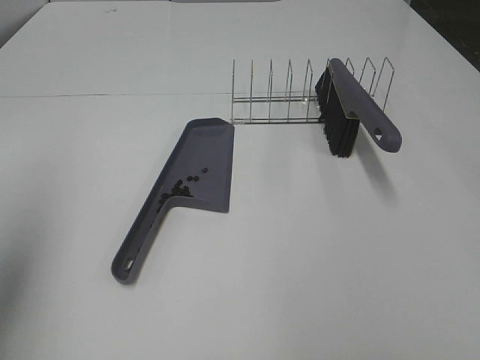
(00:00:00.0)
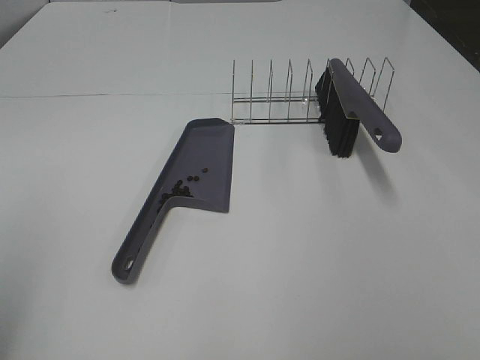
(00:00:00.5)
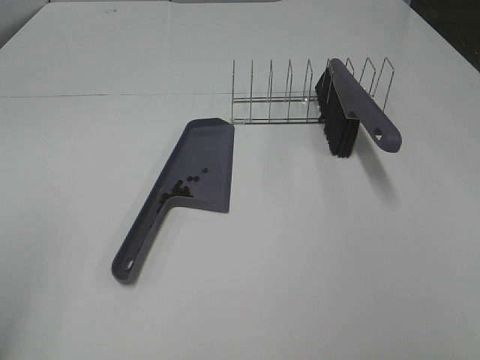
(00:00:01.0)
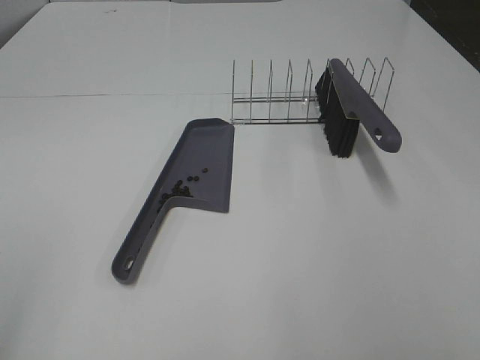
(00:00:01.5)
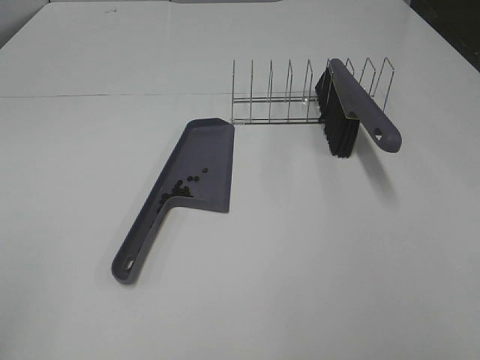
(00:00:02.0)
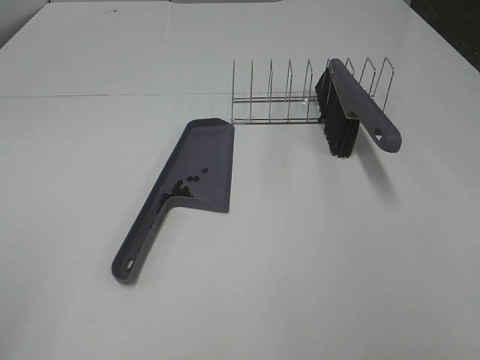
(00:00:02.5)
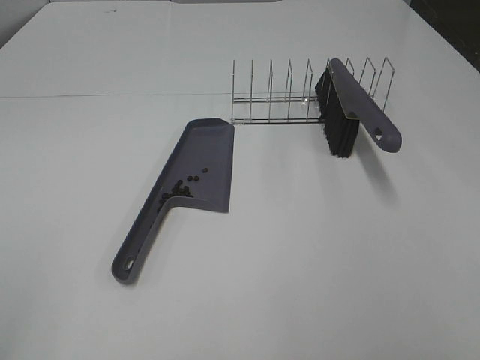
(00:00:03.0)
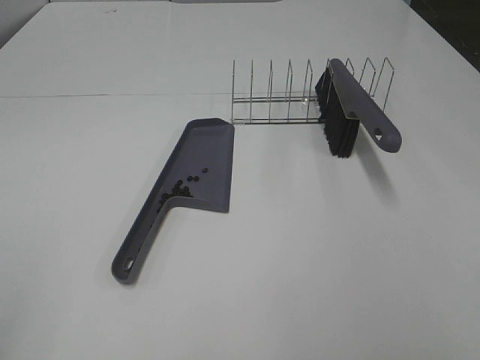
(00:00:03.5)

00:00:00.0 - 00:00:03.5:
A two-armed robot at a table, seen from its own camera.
Task of the whole recording: Sweep Coffee Bean.
00:00:00.0 - 00:00:02.0: The left gripper shifts roughly 20 cm backward.
00:00:02.0 - 00:00:03.5: The two grippers keep their place.

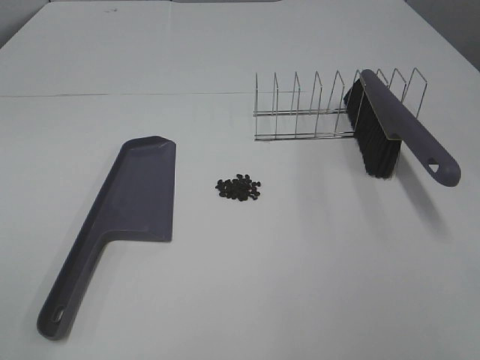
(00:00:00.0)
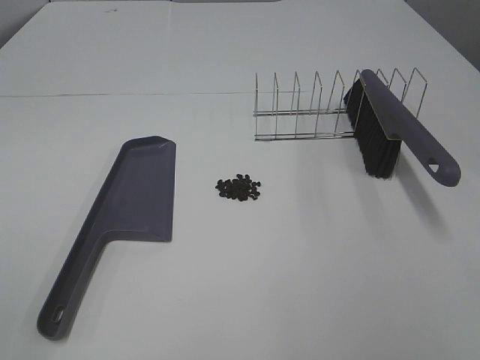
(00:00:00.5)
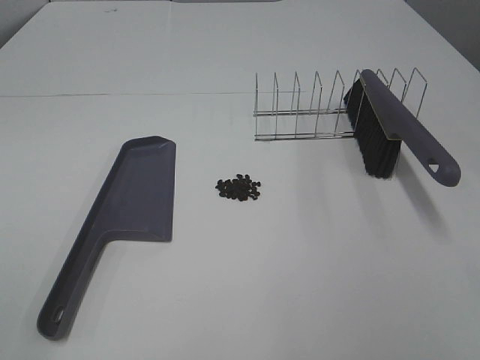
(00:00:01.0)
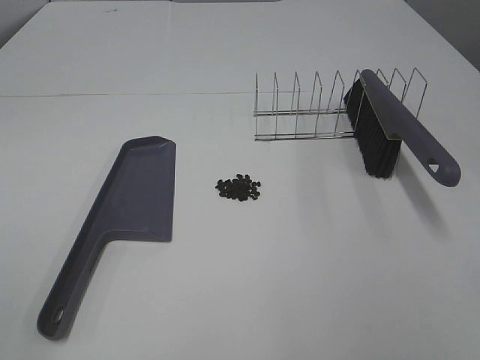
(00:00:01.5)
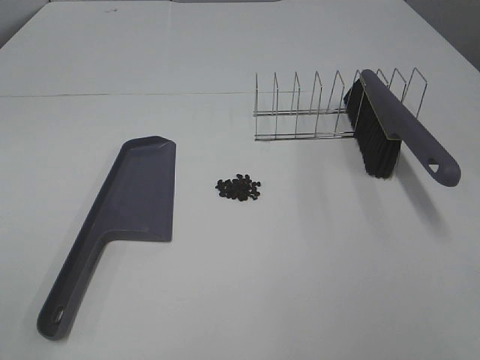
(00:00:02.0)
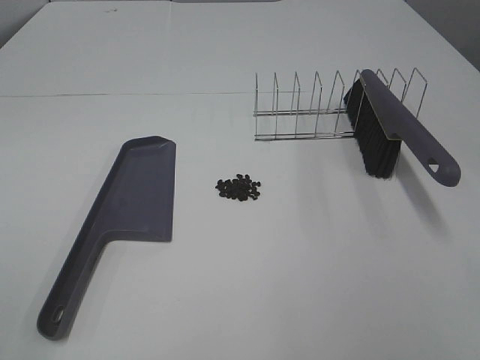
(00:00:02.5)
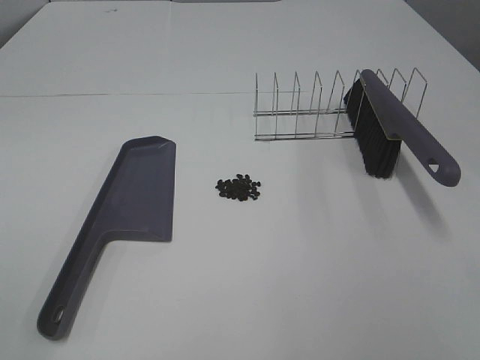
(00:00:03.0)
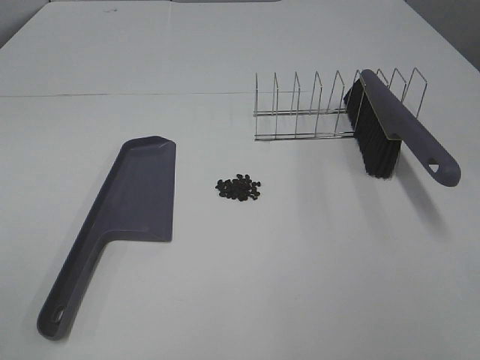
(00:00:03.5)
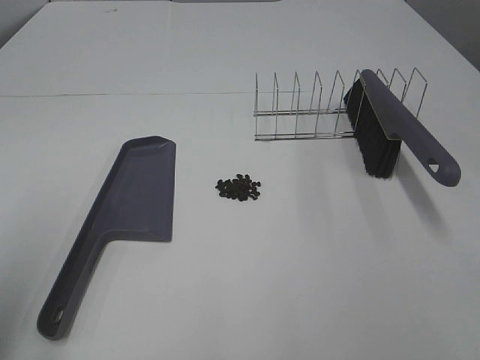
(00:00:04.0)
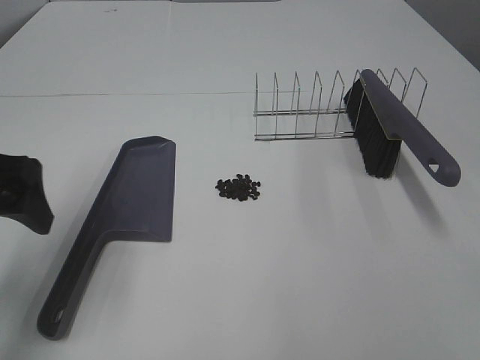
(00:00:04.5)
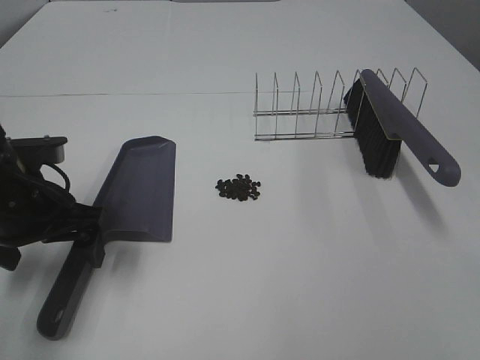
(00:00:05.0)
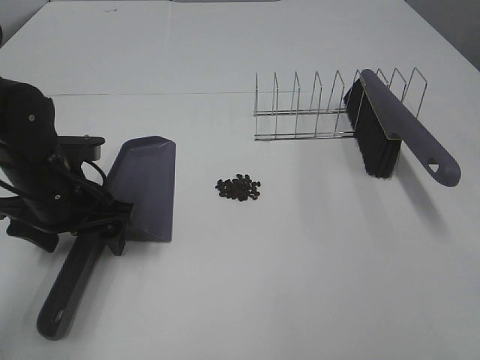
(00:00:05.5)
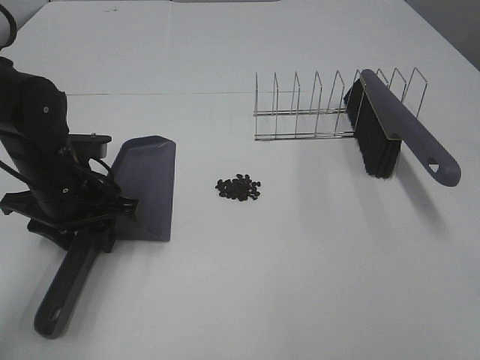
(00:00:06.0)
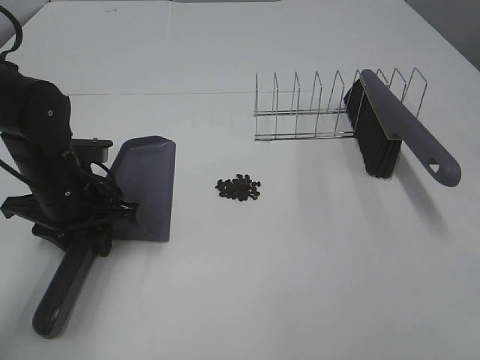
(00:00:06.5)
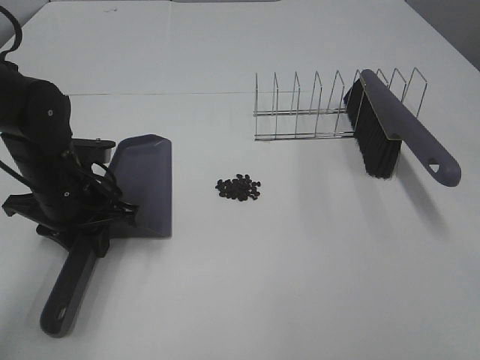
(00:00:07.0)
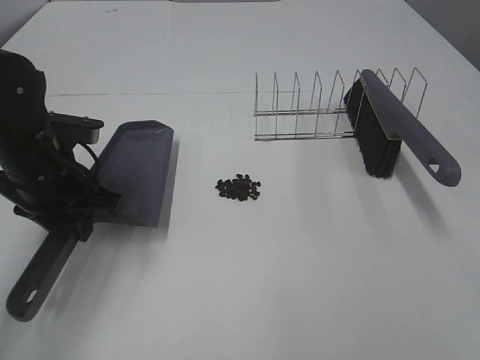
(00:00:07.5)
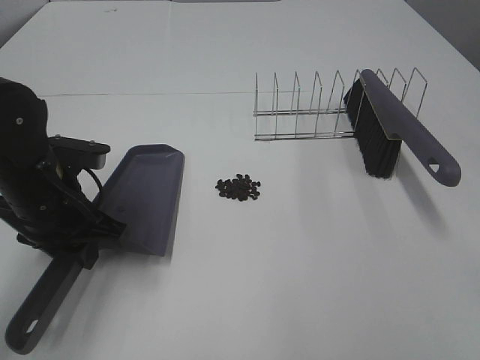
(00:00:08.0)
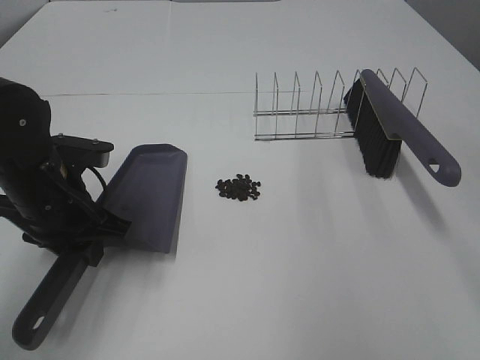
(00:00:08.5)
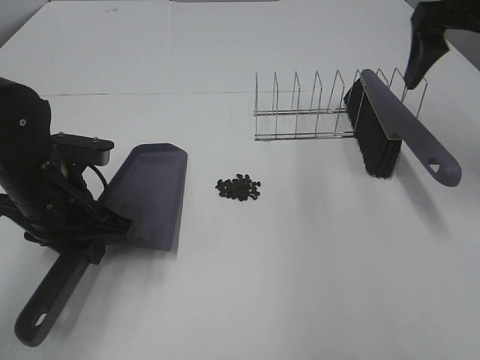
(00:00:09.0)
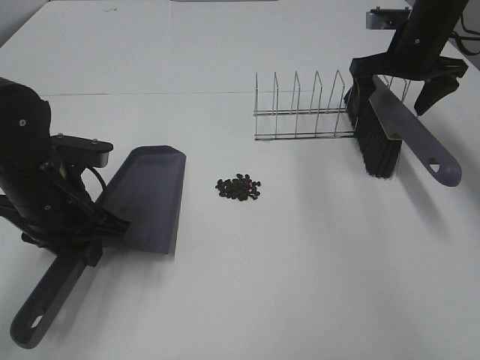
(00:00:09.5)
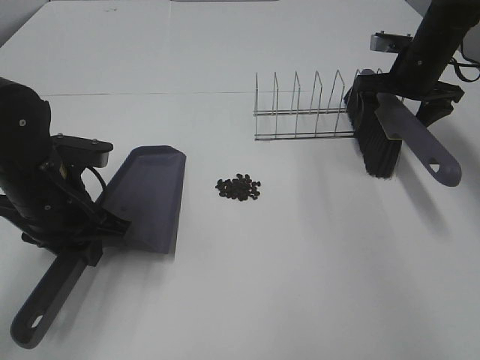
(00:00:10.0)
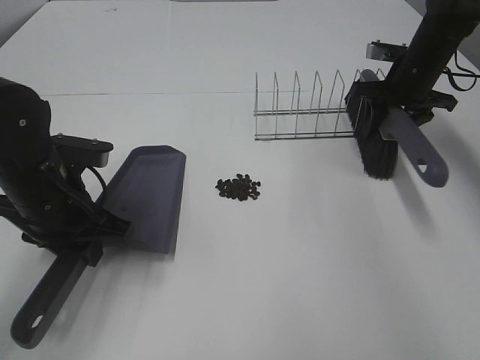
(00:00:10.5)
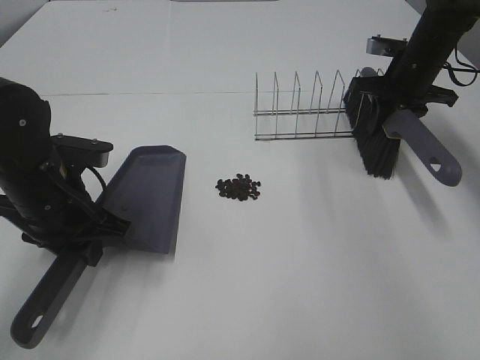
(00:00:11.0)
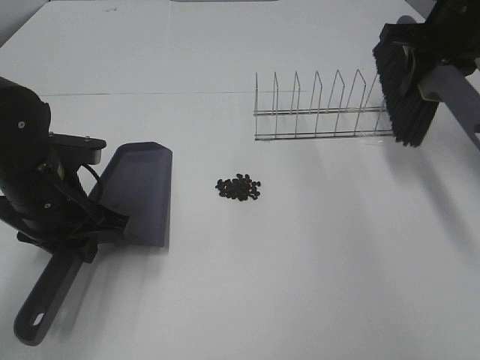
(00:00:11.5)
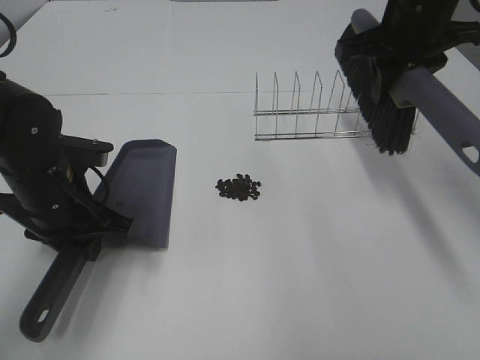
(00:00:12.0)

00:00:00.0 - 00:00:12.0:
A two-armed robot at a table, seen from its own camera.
Task of the whole recording: Sweep Coffee Bean.
Step, 00:00:00.0 - 00:00:06.0: Left hand: grab the dustpan.
Step, 00:00:08.0 - 00:00:10.5: Right hand:grab the broom.
00:00:00.0 - 00:00:02.0: Both grippers stay about where they are.
00:00:02.0 - 00:00:04.0: The left gripper goes about 10 cm forward.
00:00:04.0 - 00:00:06.0: The left gripper travels forward, downward and to the right by some 30 cm, and closes its fingers.
00:00:06.0 - 00:00:08.0: The grippers stay close to where they were, moving slightly.
00:00:08.0 - 00:00:10.0: The right gripper moves forward, approximately 50 cm.
00:00:10.0 - 00:00:12.0: The right gripper moves upward, backward and to the left, some 15 cm, and closes.

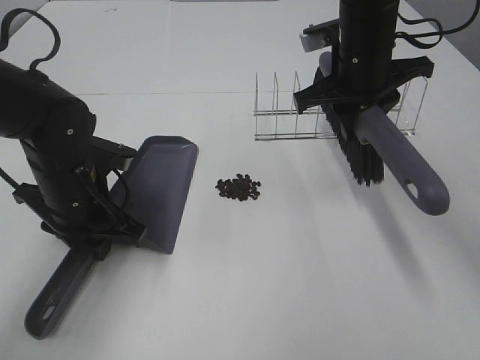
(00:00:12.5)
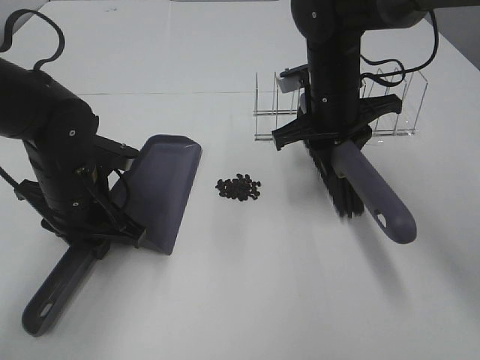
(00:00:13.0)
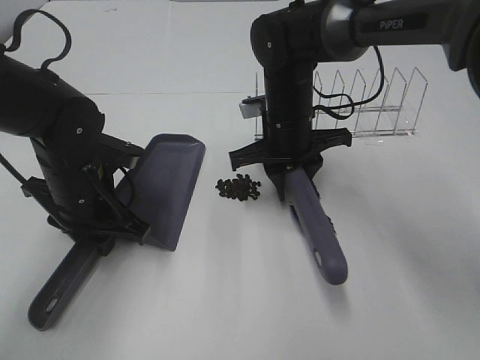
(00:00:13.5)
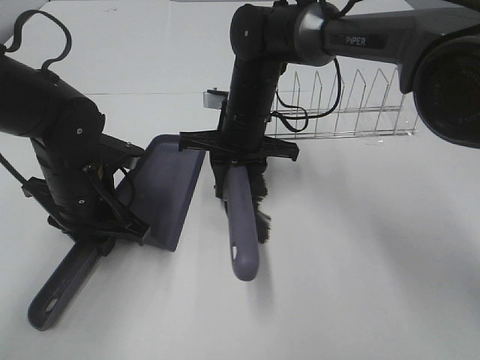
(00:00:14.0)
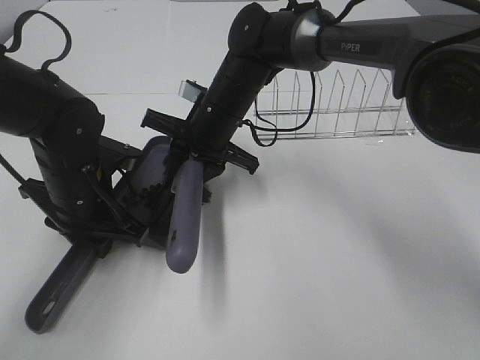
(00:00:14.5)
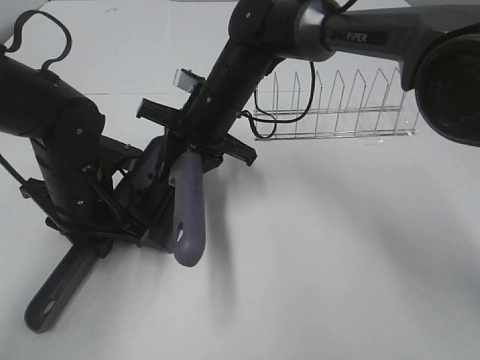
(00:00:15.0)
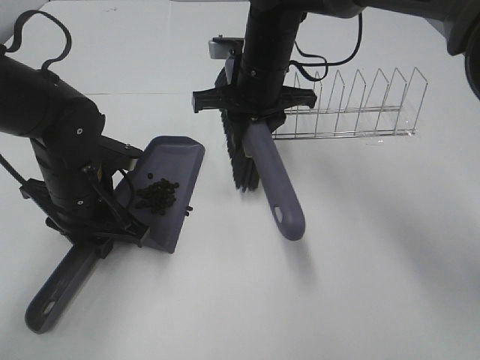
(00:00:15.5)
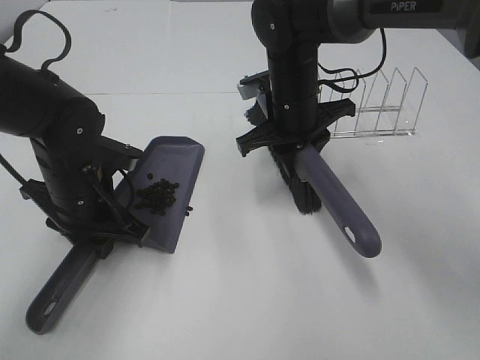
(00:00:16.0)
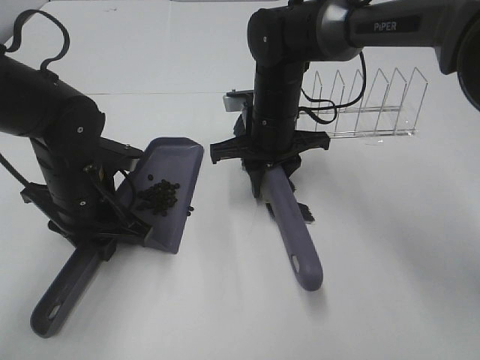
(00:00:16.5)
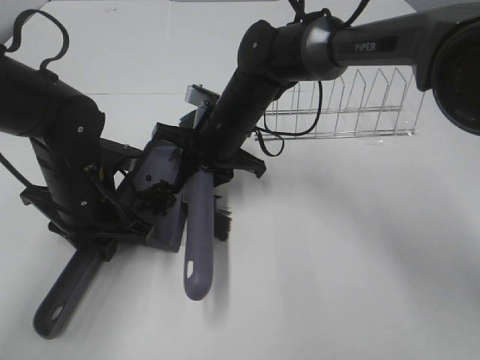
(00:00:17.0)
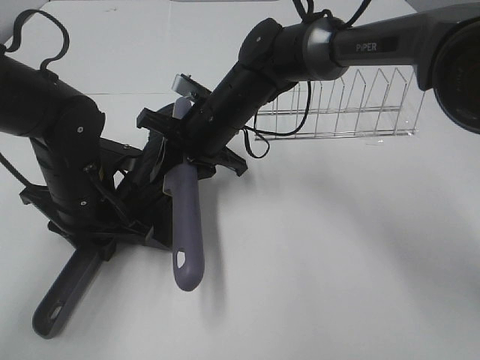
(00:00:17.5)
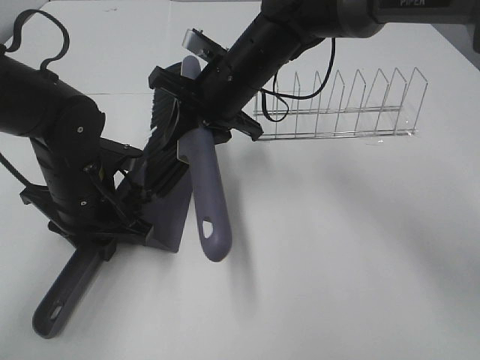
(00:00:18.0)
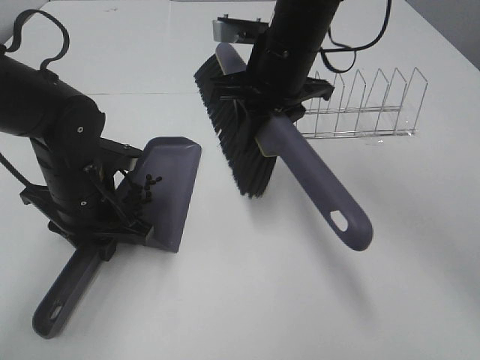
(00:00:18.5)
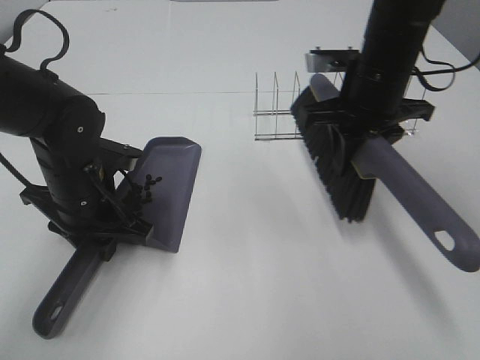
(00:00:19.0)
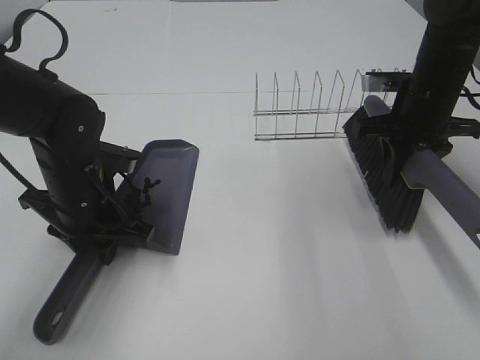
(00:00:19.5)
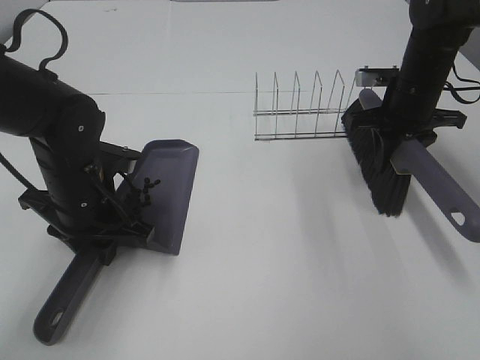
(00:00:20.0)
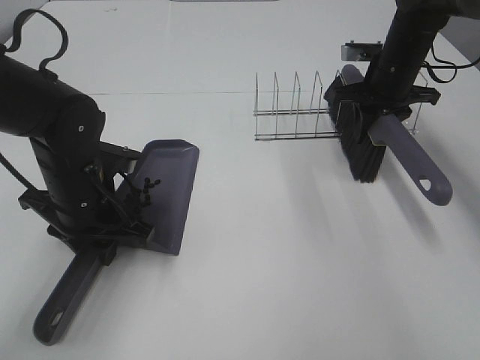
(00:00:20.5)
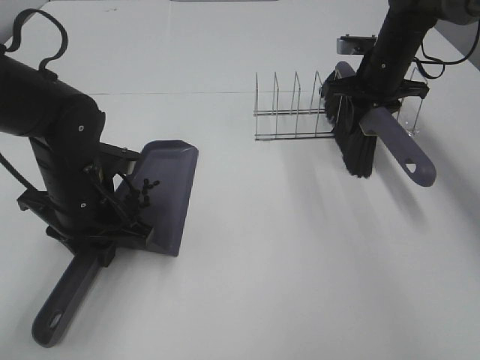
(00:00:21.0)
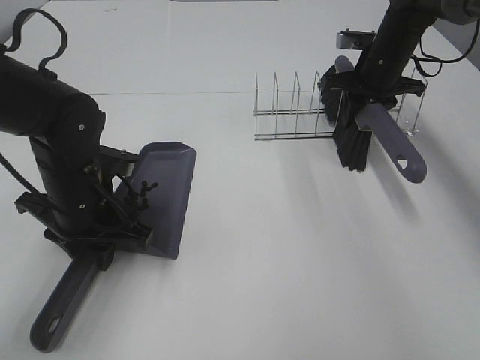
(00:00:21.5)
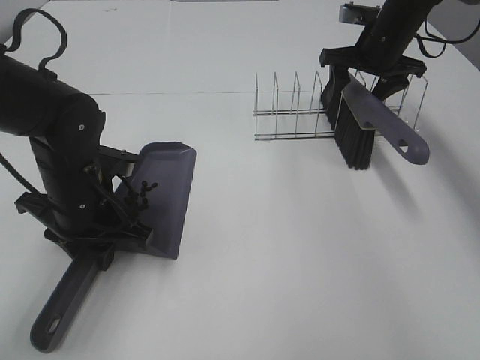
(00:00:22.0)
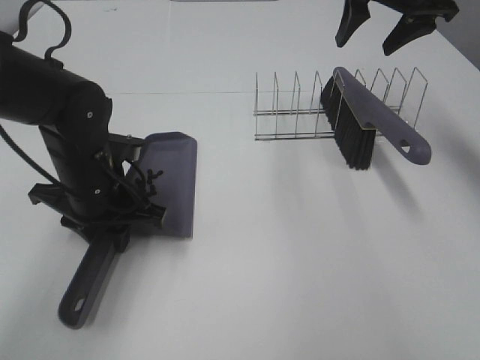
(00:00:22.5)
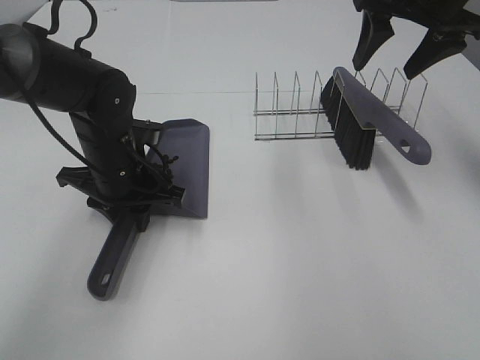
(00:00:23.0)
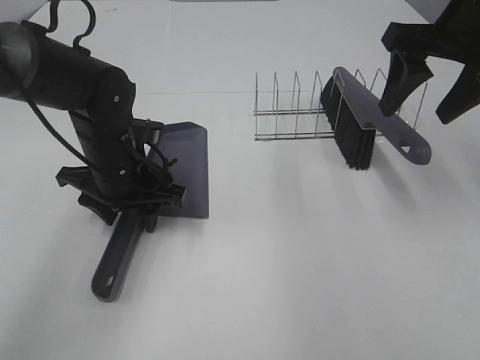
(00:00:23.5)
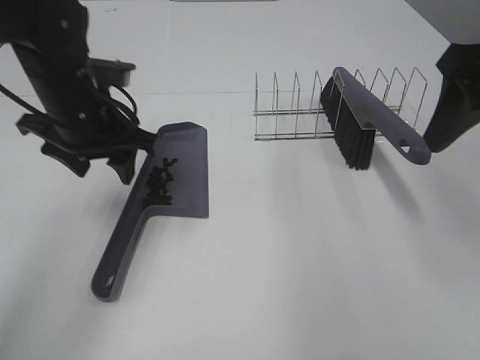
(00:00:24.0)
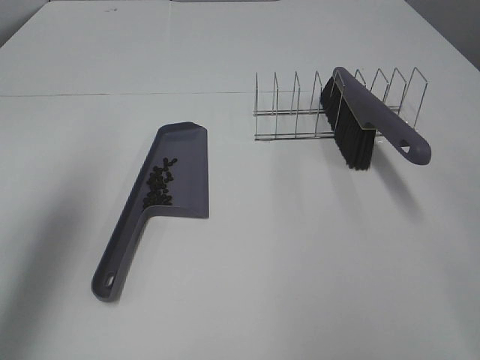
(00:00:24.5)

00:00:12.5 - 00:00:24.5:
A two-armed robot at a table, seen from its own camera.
Task of the whole recording: Sweep Coffee Bean.
Step, 00:00:12.5 - 00:00:17.0: Right hand:sweep the coffee beans into the dustpan.
Step, 00:00:17.5 - 00:00:22.0: Right hand:place the broom on the rack.
Step, 00:00:22.5 - 00:00:23.5: Left hand:place the dustpan on the table.
00:00:12.5 - 00:00:14.5: The right gripper moves to the left and downward, some 20 cm.
00:00:14.5 - 00:00:16.5: The right gripper goes approximately 5 cm to the right.
00:00:16.5 - 00:00:18.5: The right gripper shifts some 10 cm upward.
00:00:18.5 - 00:00:20.5: The right gripper goes some 20 cm to the right, forward and downward.
00:00:20.5 - 00:00:22.5: The right gripper is displaced upward by approximately 15 cm, and opens its fingers.
00:00:22.5 - 00:00:24.5: The right gripper heads backward, covering approximately 35 cm, while the left gripper heads upward and to the left, covering roughly 25 cm, and opens its fingers.
